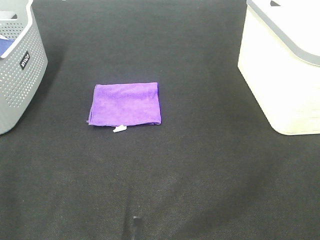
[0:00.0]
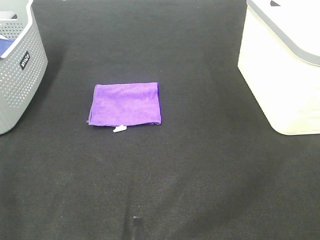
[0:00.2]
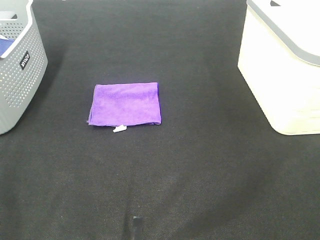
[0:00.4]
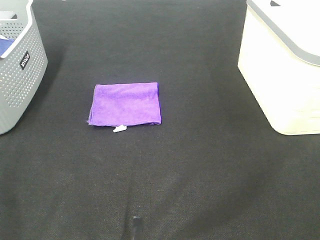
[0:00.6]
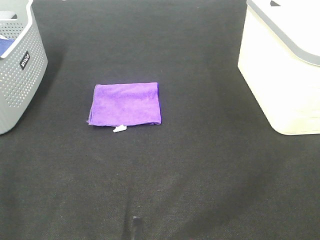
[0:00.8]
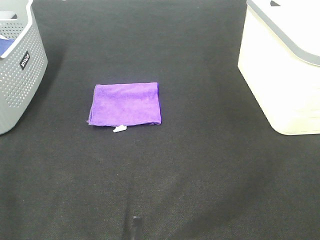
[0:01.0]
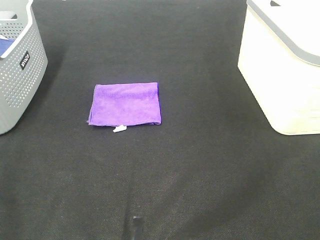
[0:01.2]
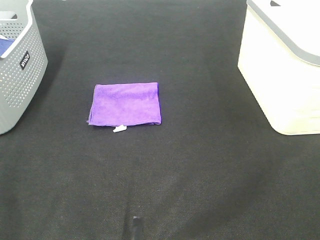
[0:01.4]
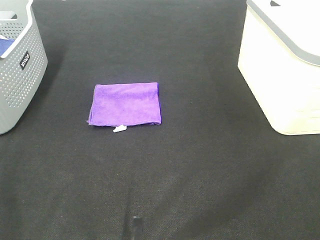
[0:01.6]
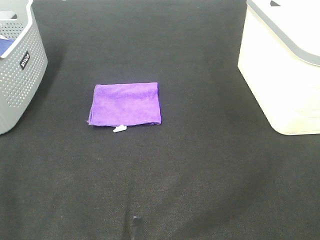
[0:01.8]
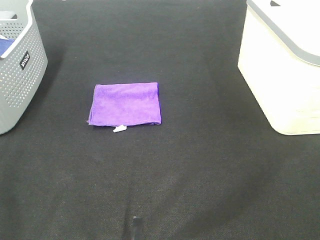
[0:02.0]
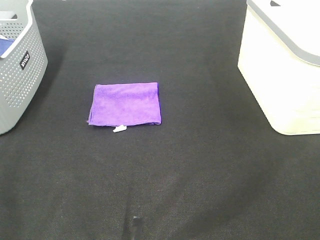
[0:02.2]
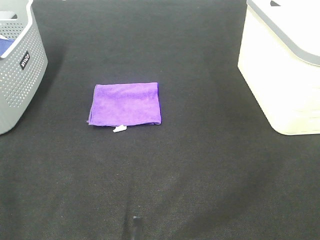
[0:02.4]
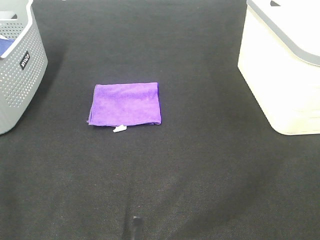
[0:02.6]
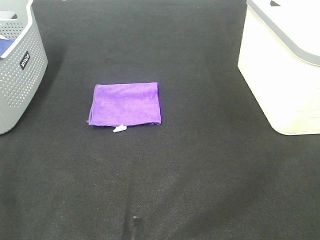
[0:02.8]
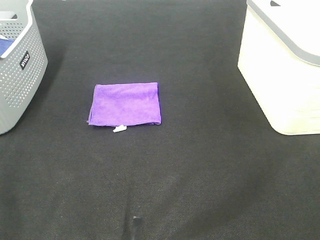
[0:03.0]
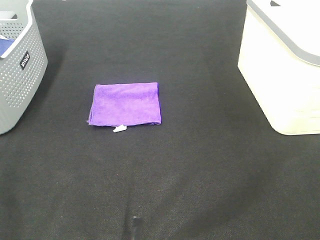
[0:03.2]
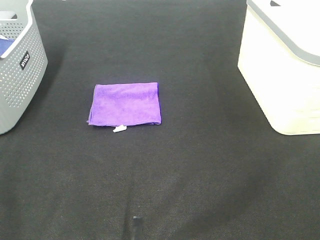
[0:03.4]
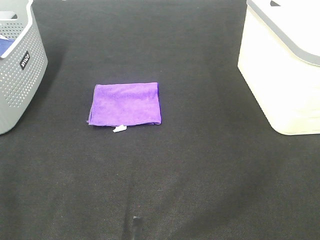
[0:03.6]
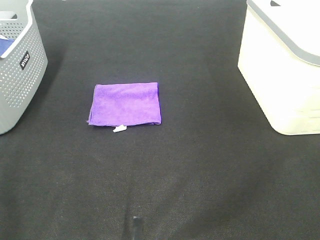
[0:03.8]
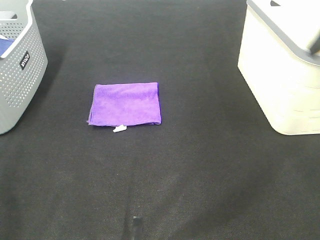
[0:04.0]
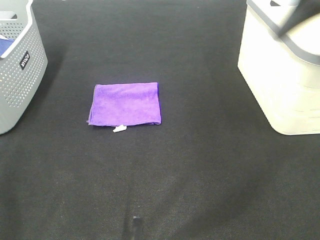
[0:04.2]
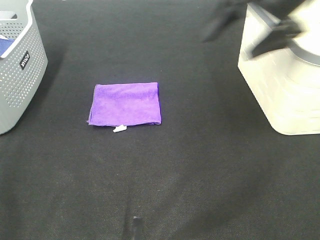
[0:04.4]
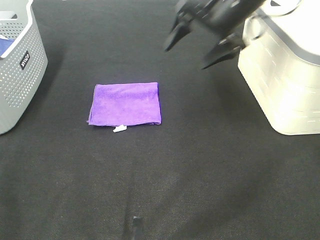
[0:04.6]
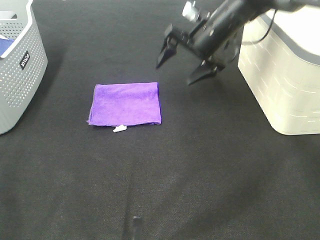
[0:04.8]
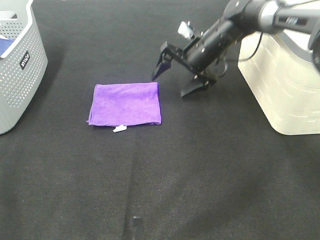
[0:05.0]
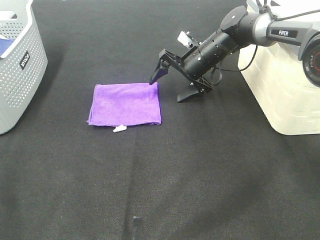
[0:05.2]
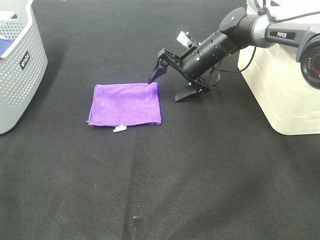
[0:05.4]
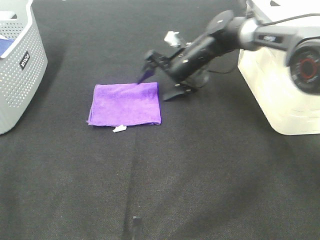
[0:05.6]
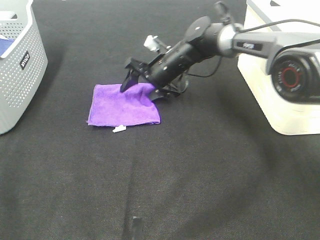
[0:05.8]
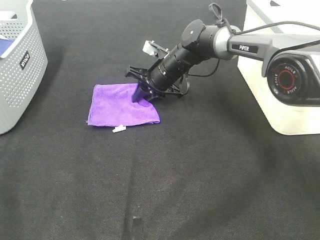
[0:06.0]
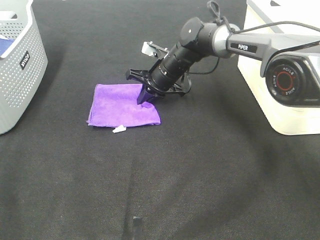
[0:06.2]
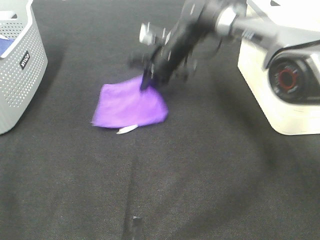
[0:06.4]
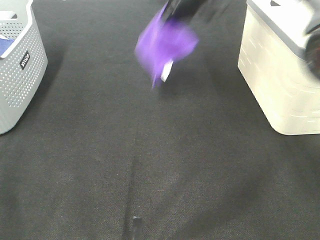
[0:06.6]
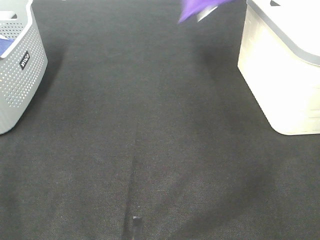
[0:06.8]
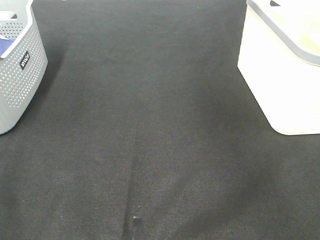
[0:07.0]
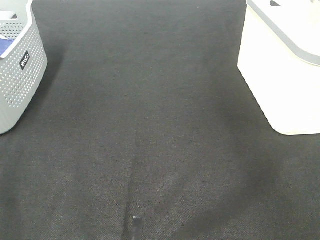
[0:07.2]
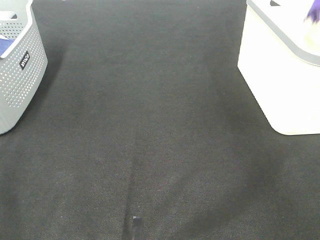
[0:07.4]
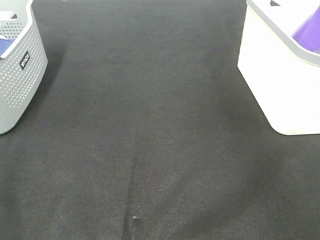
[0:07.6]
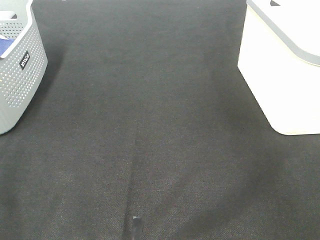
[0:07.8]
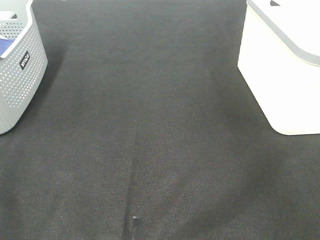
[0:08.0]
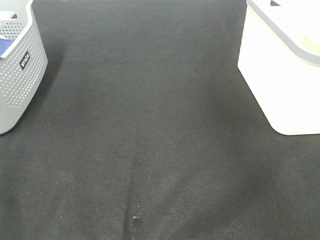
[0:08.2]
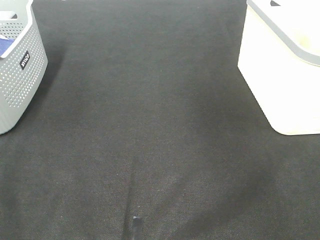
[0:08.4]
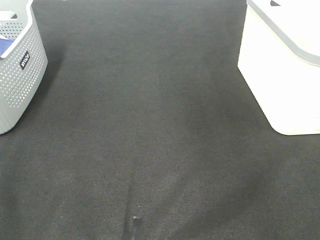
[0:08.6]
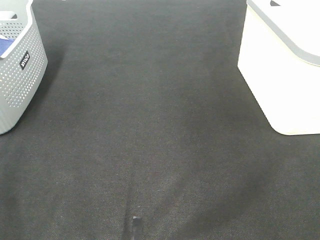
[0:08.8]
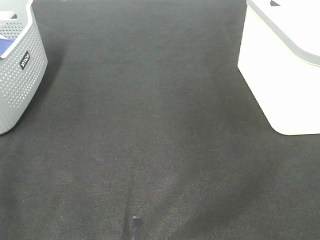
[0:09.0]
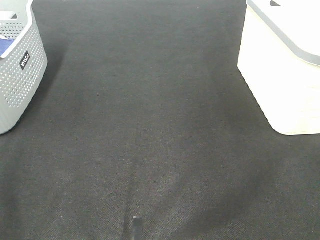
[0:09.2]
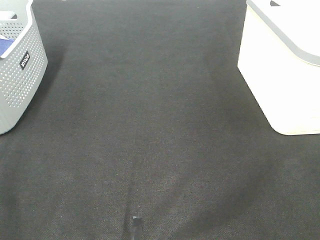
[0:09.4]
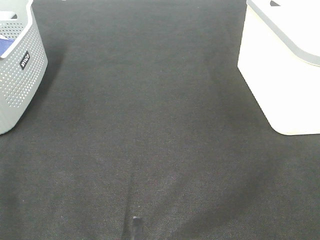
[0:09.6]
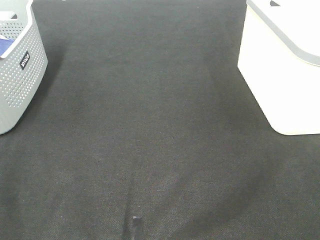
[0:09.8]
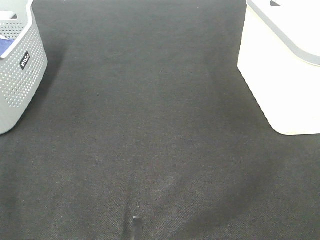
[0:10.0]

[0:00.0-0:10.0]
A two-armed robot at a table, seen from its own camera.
Step, 0:00.0 to 0:06.2: Right hand: grab the folded purple towel.
Step, 0:06.4 to 0:07.8: Right hand: place the purple towel in right basket.
0:00.0 to 0:02.8: Both grippers stay put.
0:02.8 to 0:04.2: The right gripper goes about 30 cm forward.
0:04.2 to 0:05.8: The right gripper goes approximately 35 cm downward, to the left and forward.
0:05.8 to 0:07.2: The right gripper shifts roughly 50 cm to the right and upward, and closes up.

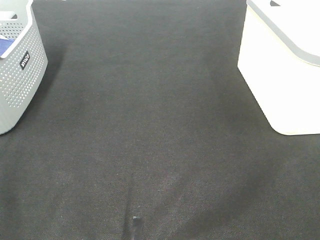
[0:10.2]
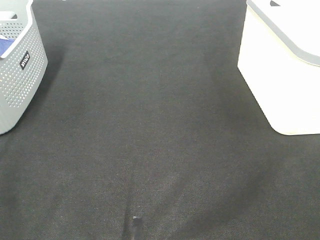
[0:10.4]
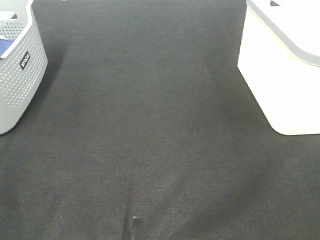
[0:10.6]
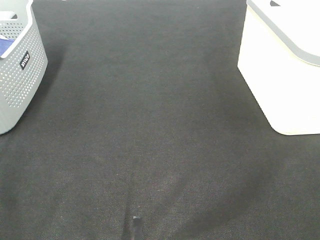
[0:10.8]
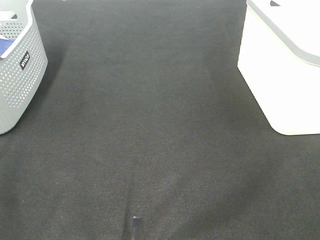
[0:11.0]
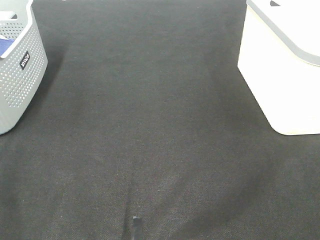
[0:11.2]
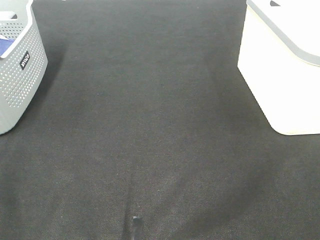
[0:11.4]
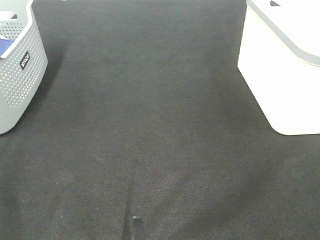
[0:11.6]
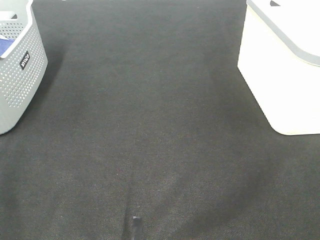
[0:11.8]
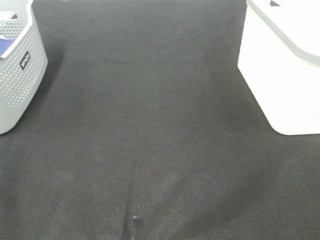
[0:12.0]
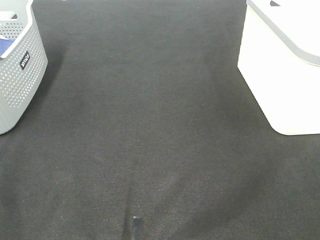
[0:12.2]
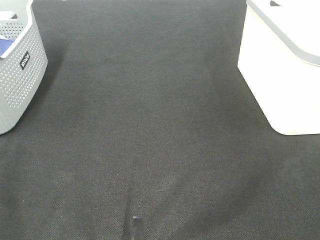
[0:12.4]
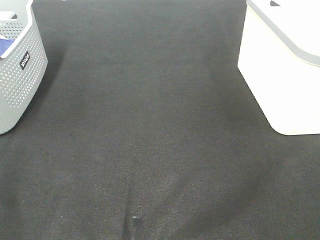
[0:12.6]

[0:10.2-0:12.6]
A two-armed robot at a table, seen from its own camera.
0:11.4 to 0:12.6: Both grippers stay about where they are.

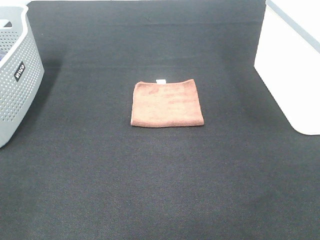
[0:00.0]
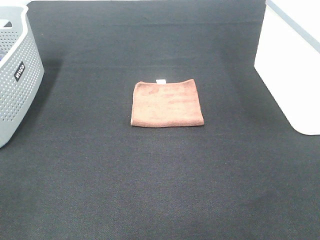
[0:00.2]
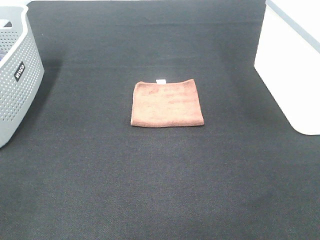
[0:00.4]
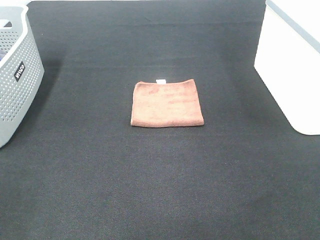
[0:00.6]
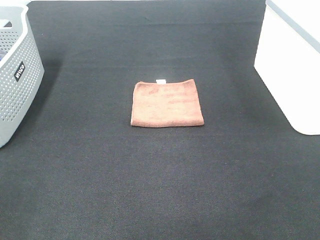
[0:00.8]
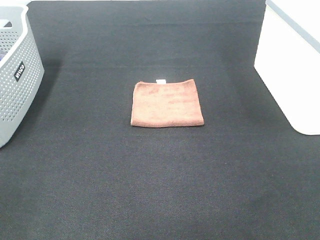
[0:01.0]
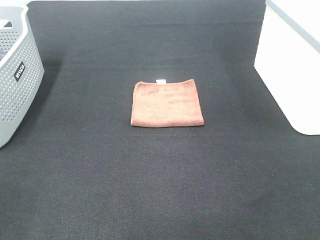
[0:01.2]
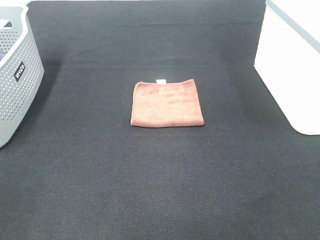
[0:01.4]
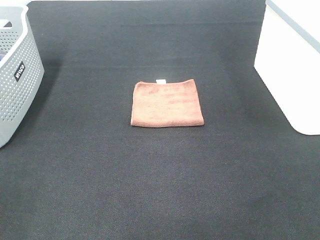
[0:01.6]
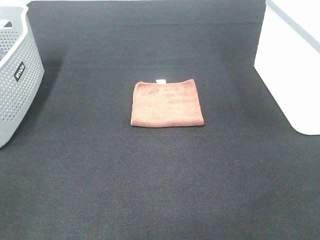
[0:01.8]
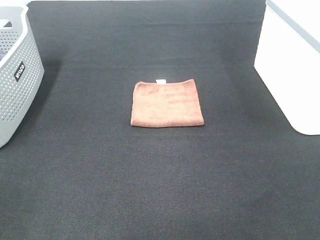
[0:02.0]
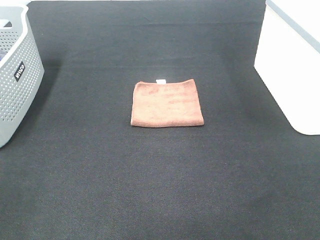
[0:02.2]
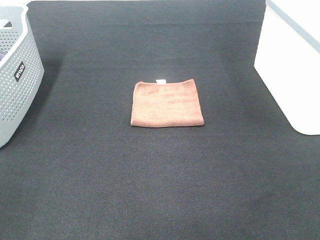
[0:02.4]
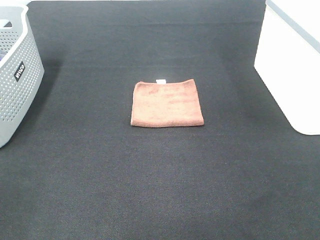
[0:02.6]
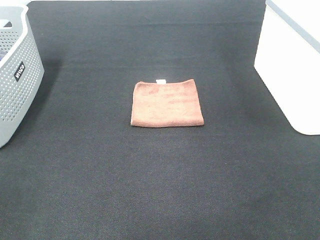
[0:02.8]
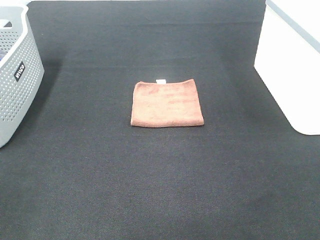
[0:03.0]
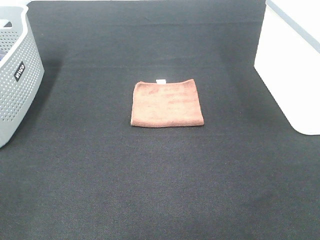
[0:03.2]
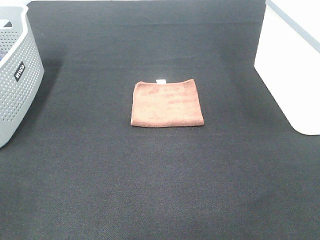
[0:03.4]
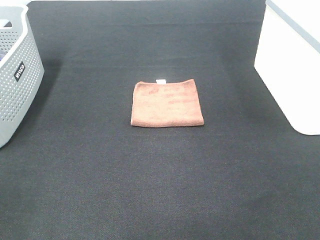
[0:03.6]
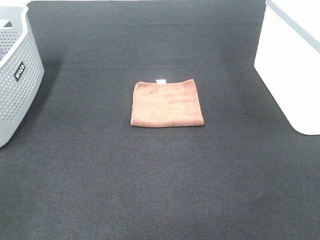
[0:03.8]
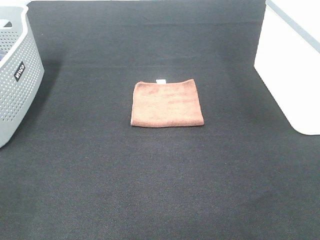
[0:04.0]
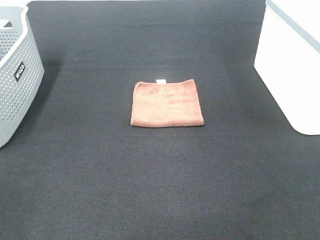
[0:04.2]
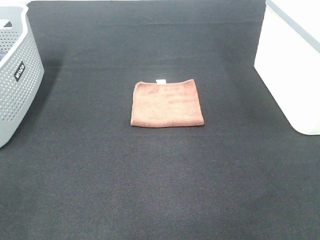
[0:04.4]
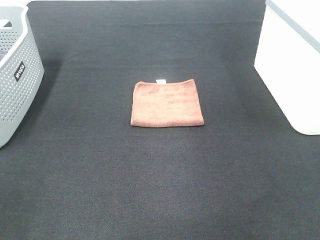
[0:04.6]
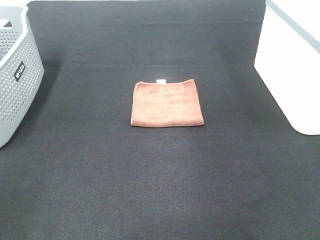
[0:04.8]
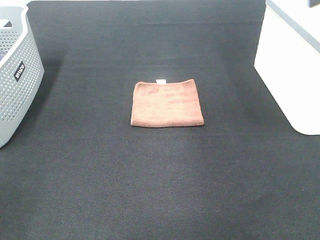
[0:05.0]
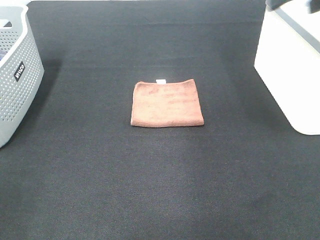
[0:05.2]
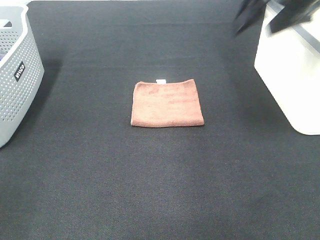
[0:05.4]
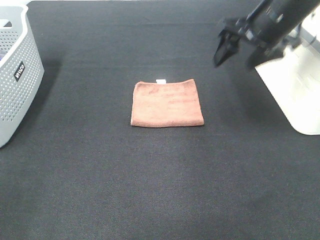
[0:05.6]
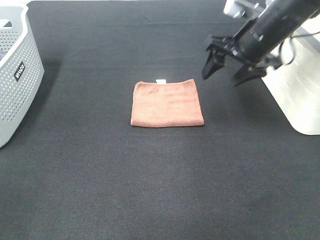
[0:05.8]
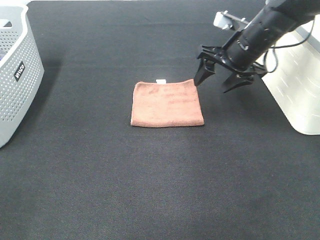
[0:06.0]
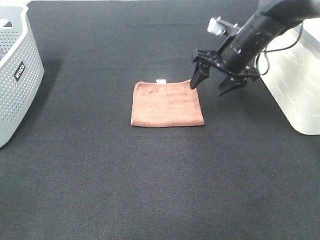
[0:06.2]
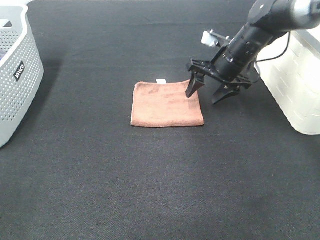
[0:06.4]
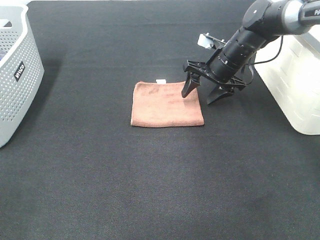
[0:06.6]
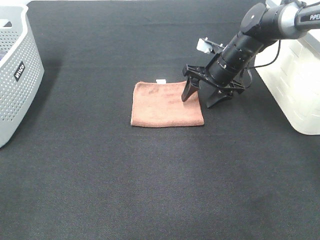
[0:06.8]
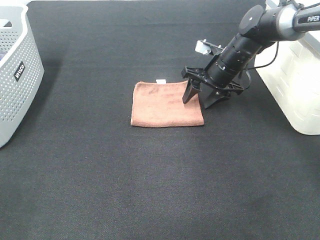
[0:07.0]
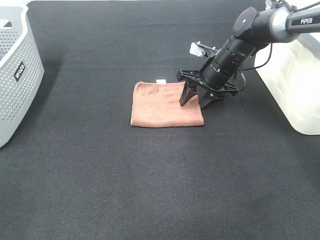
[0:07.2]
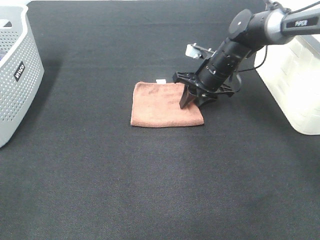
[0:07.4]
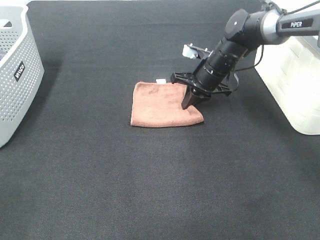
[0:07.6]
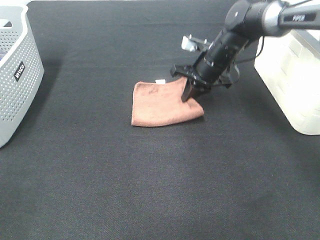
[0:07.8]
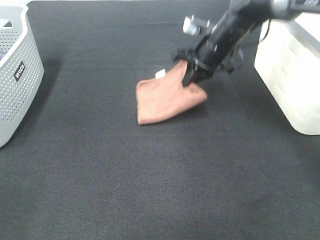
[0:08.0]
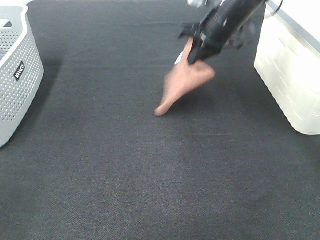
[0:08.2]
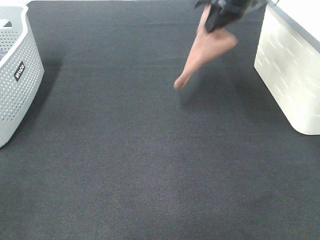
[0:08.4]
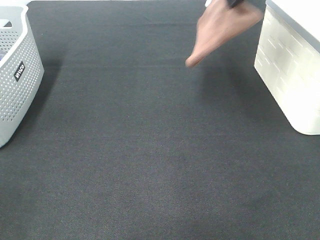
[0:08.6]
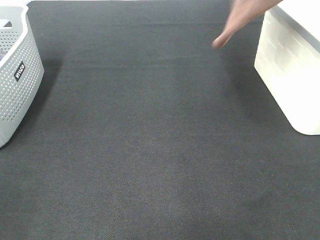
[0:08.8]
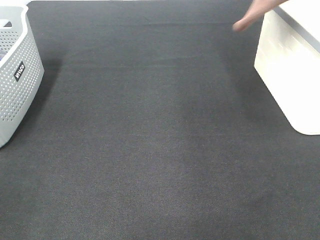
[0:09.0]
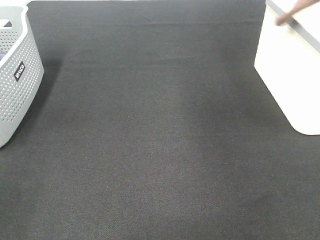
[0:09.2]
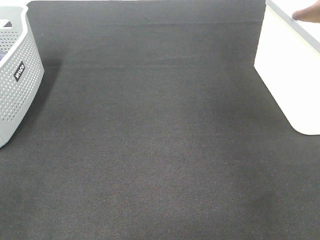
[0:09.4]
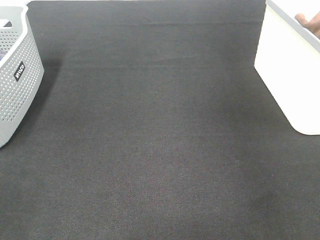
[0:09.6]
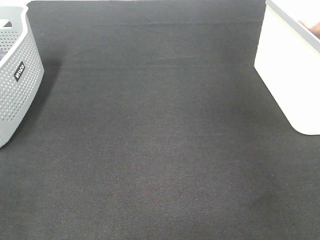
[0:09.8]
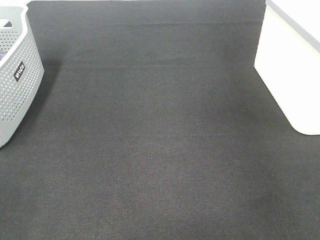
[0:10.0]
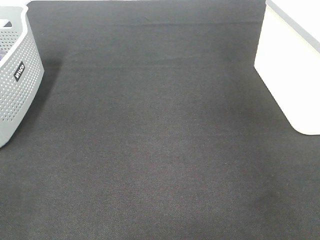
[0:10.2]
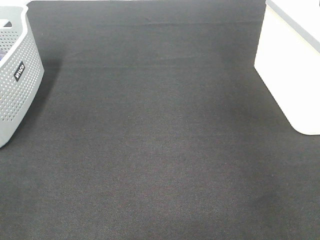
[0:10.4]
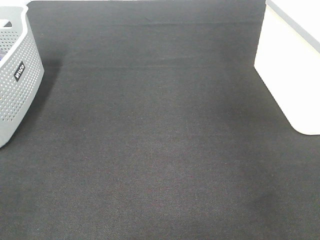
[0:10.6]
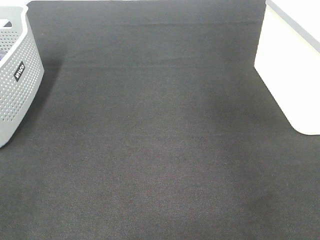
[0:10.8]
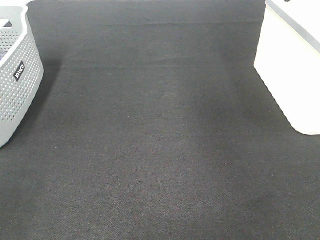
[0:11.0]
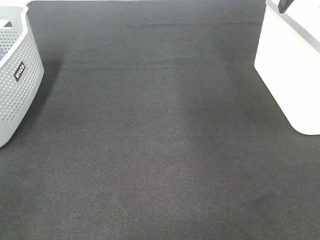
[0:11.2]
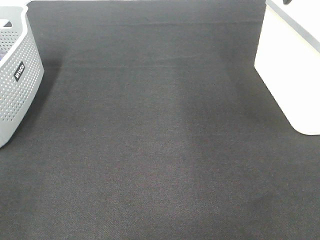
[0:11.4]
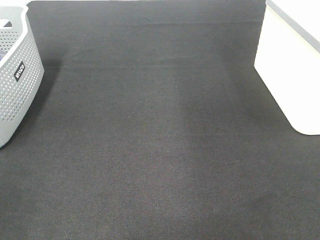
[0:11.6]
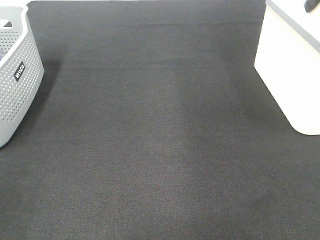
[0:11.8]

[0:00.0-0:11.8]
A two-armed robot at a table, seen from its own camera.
Step, 0:00.0 to 0:07.6: Right hand: grab the folded brown towel.
Step, 0:07.8 to 0:10.2: Right hand: place the brown towel in right basket.
0:00.0 to 0:03.0: The two grippers keep their place.
0:04.4 to 0:06.0: The right gripper heads forward and downward, covering about 40 cm.
0:06.0 to 0:07.4: The right gripper travels downward by about 10 cm, and closes.
0:07.4 to 0:08.8: The right gripper moves upward, approximately 30 cm, and closes.
0:08.8 to 0:10.4: The right gripper shifts approximately 15 cm to the right, and opens up.
